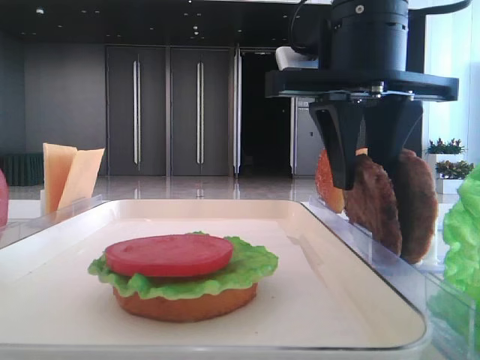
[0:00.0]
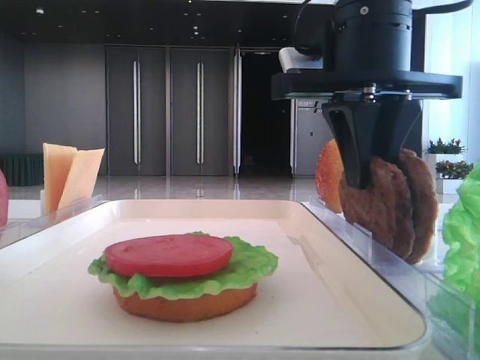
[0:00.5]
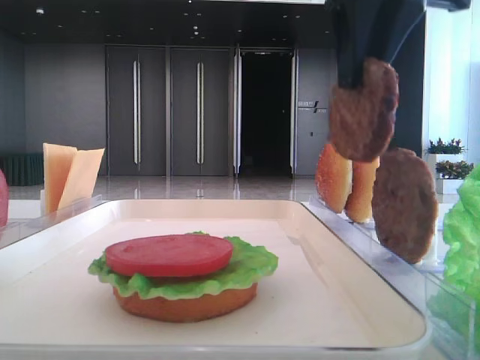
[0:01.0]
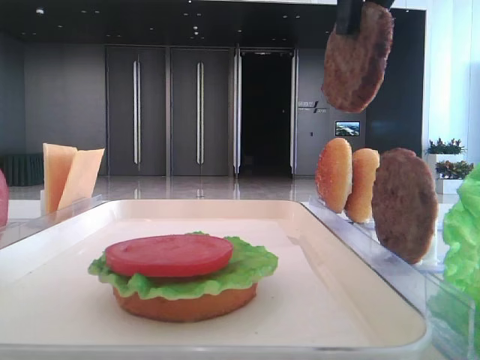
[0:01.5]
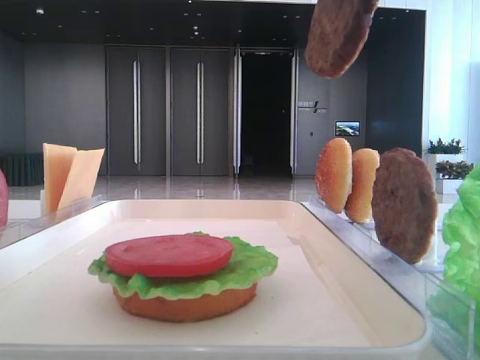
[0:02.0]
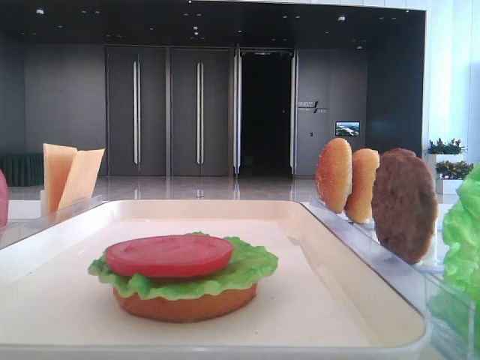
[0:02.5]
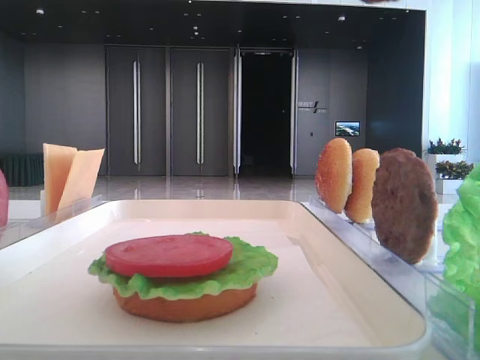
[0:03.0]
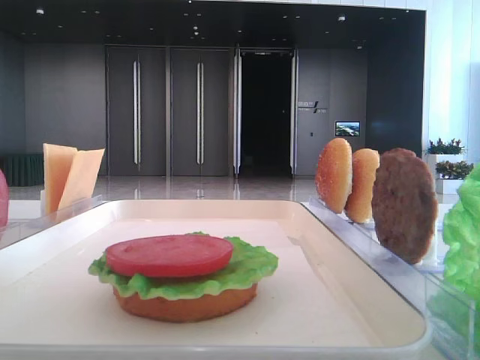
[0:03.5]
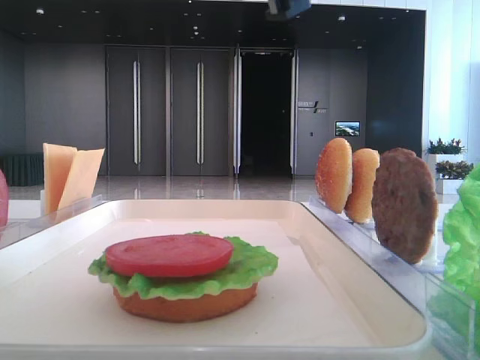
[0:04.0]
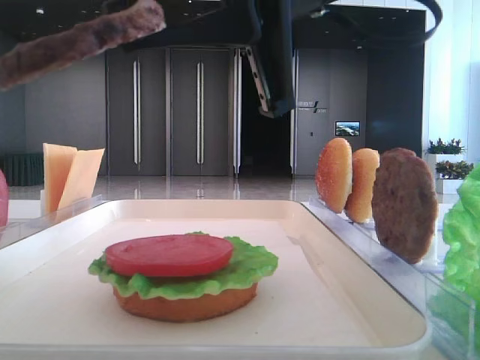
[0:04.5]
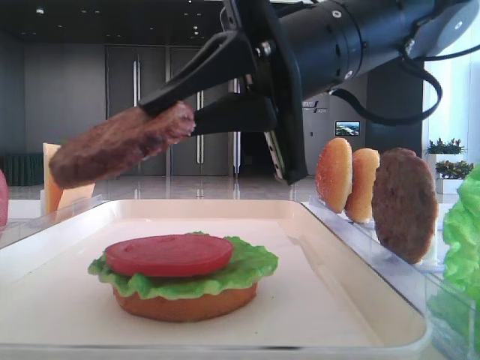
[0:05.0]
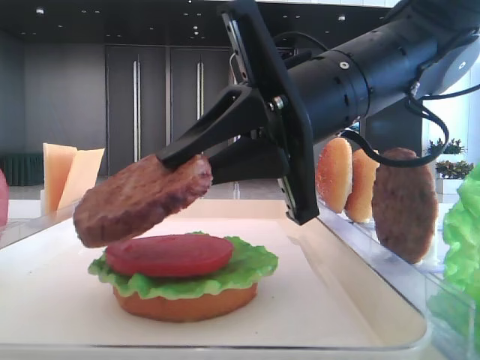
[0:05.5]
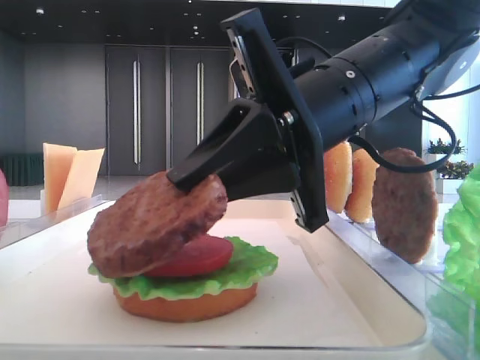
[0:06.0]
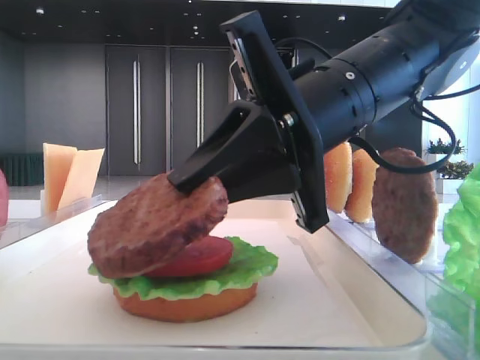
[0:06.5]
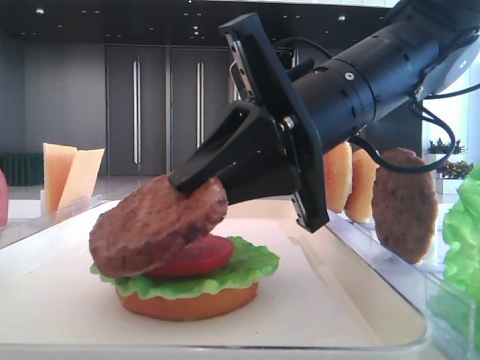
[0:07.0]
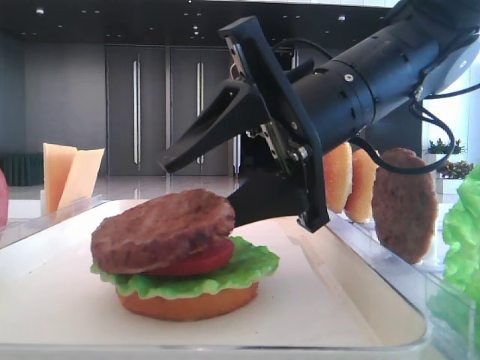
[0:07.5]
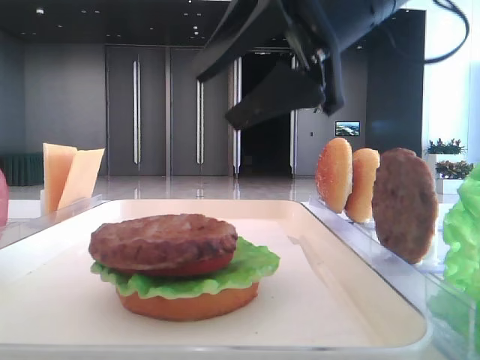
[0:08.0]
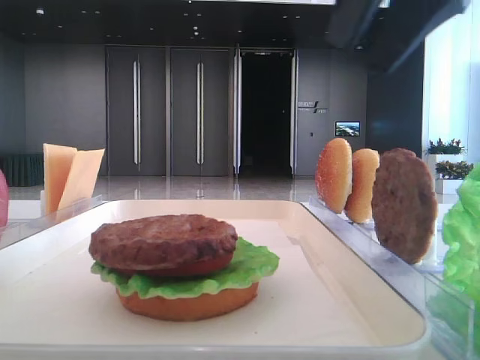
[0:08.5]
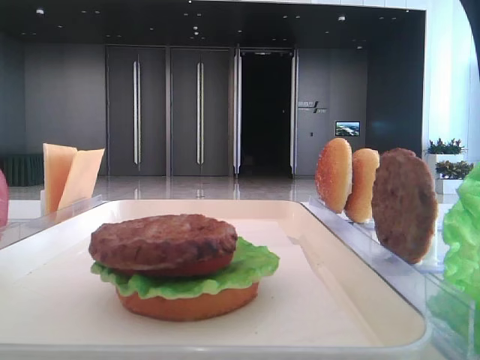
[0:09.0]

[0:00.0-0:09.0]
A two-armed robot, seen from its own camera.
Step, 0.5 to 7.5 s: Place the patty on the tomato slice with the right hand.
0.0 to 2.0 s: The right gripper shifts about 15 cm upward, and closes up.
2.0 to 4.5 s: The right gripper shifts roughly 15 cm downward and to the left. The left gripper closes up.
4.5 to 7.0 s: The right gripper travels downward by roughly 10 cm.
7.0 to 9.0 s: The right gripper heads upward and to the right, covering about 20 cm, and opens.

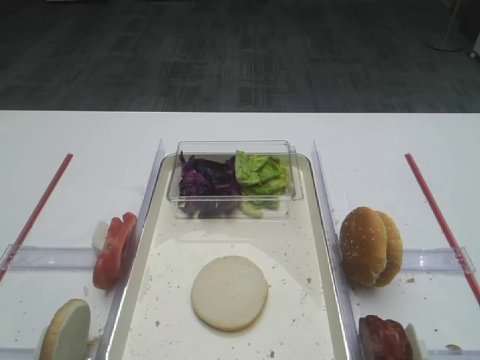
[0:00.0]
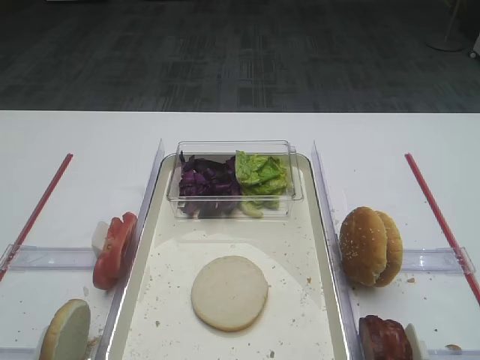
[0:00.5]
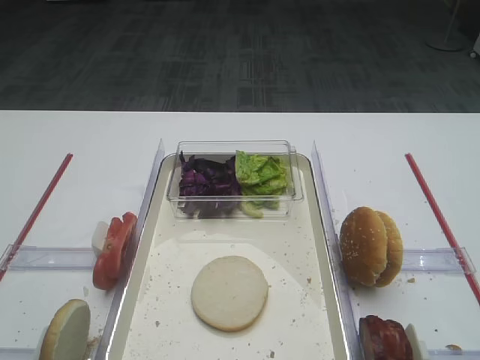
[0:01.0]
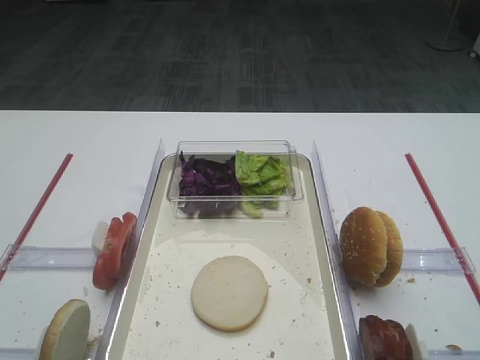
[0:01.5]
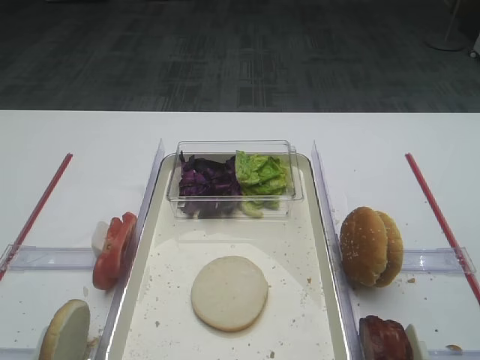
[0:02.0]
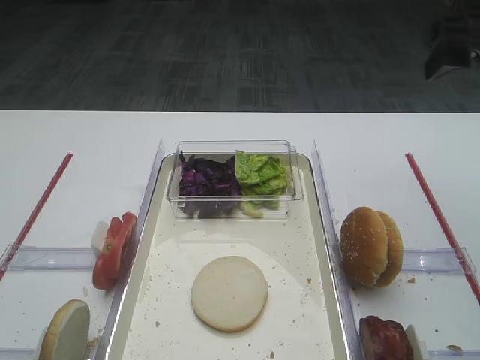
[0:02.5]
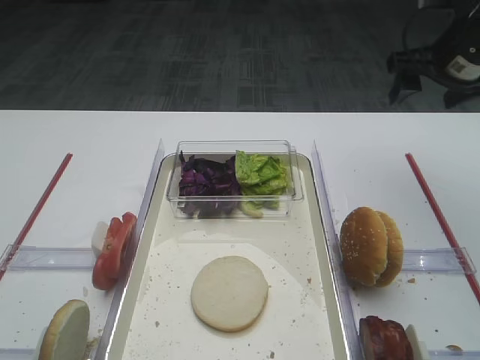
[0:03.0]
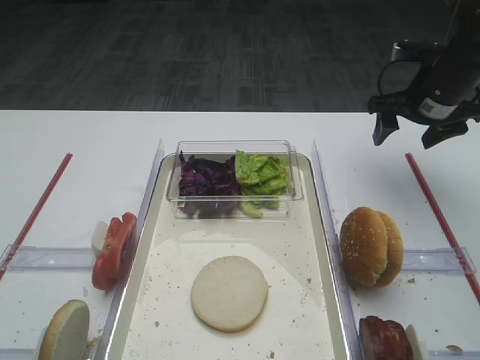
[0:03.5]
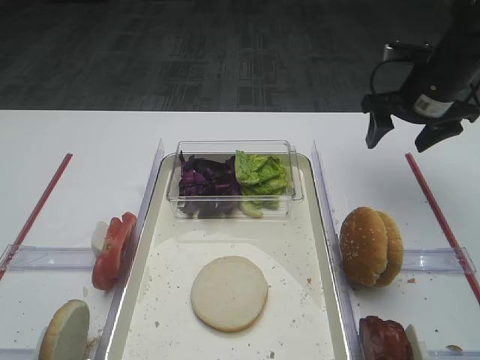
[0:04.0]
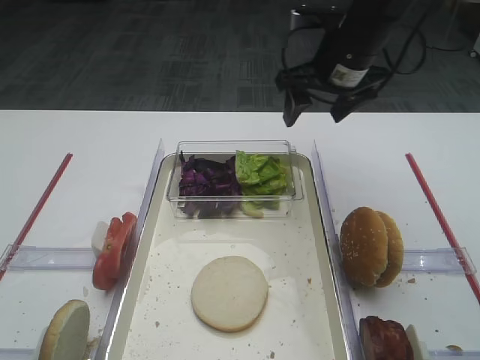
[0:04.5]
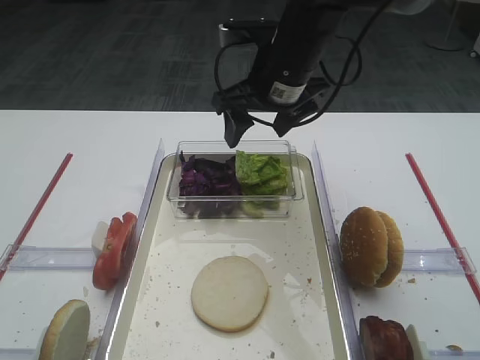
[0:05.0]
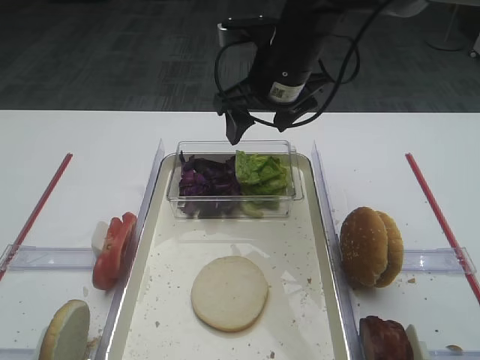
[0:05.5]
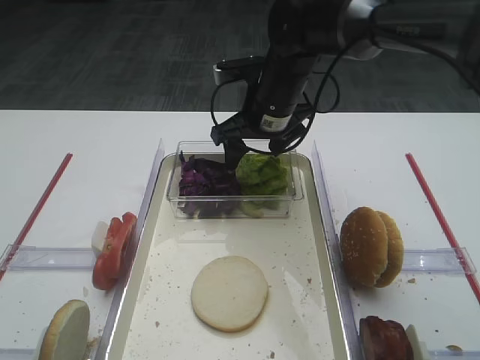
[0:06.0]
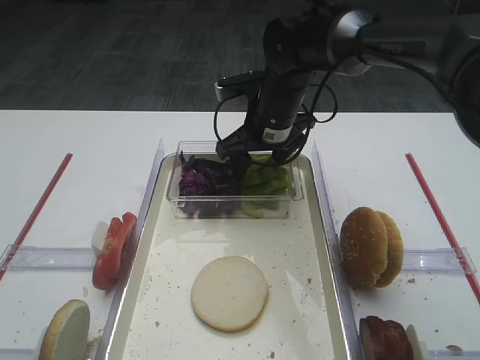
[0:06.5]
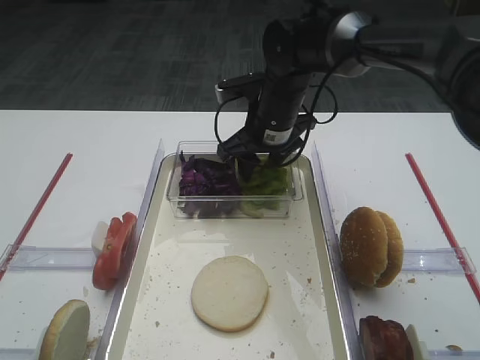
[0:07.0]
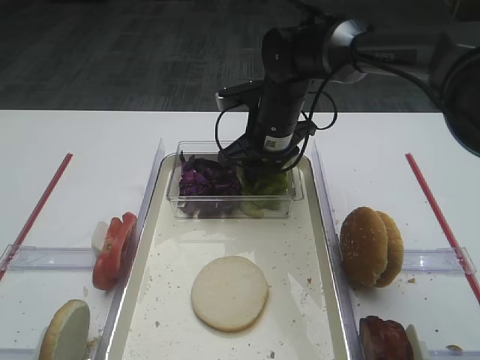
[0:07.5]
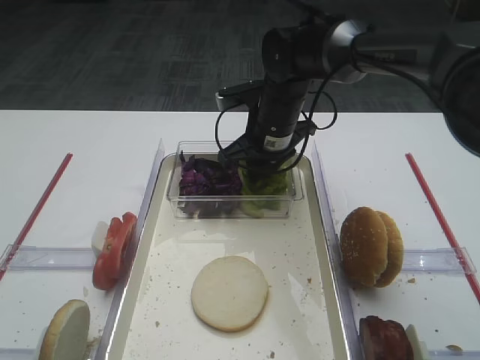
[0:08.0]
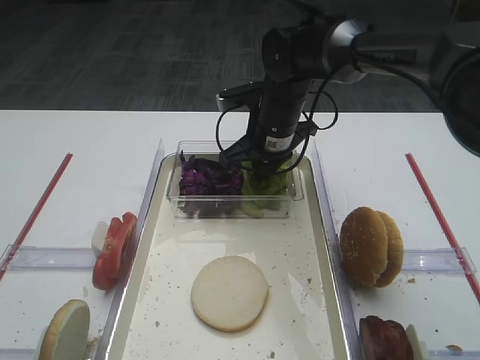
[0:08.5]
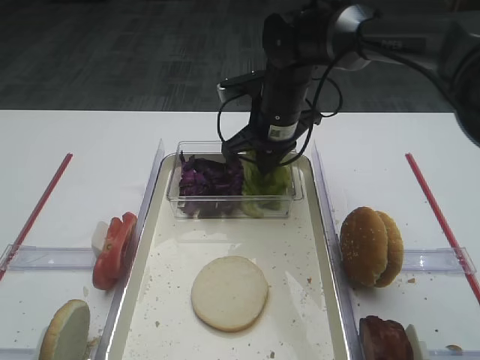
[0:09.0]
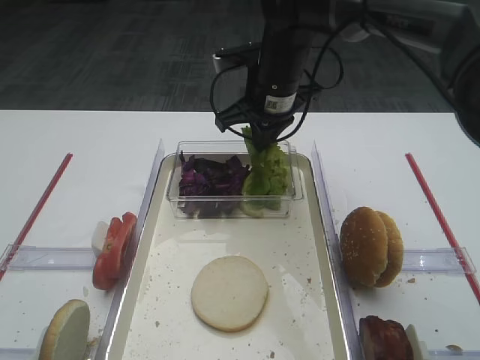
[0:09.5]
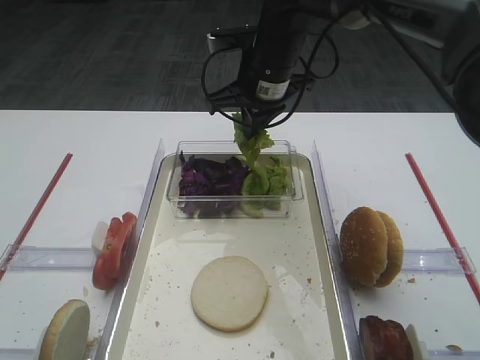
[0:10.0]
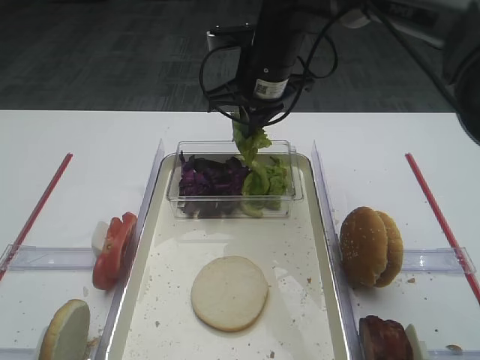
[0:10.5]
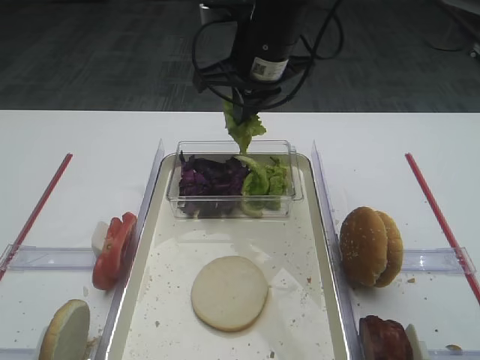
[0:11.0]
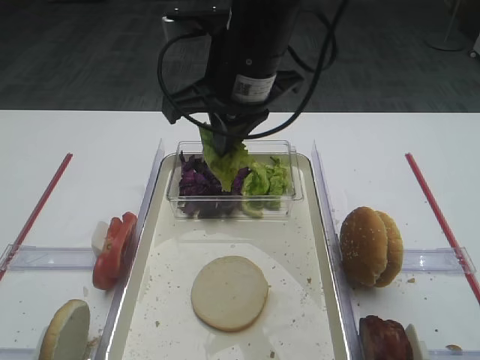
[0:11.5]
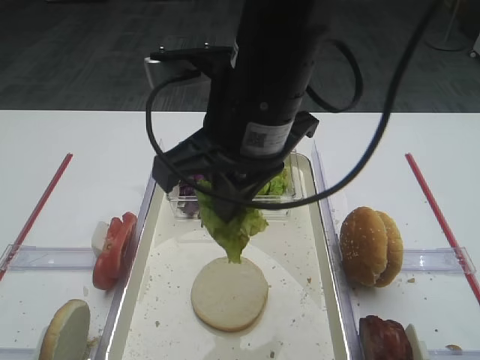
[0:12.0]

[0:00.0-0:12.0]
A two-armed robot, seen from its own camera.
Step, 0.0 to 10.0 s: Pick up the lettuce leaf with the right gripper.
2.0 to 4.0 s: The right gripper goes some 30 cm forward and downward.
4.0 to 6.0 s: The right gripper travels to the left by approximately 20 cm.
6.0 to 8.0 s: The right gripper closes its fingers.
8.0 to 10.0 s: The right gripper moves upward, about 10 cm.
10.0 to 12.0 s: The right gripper travels backward by some 20 cm.

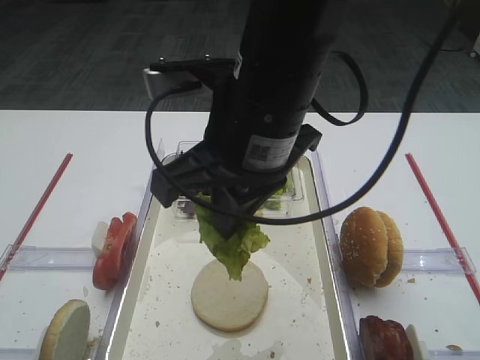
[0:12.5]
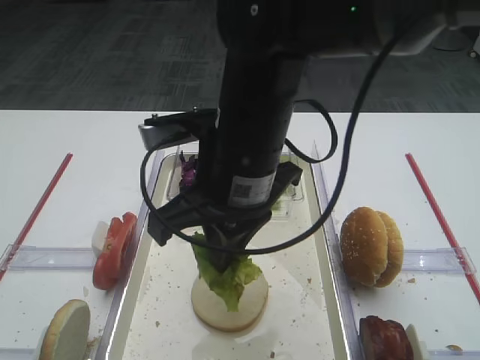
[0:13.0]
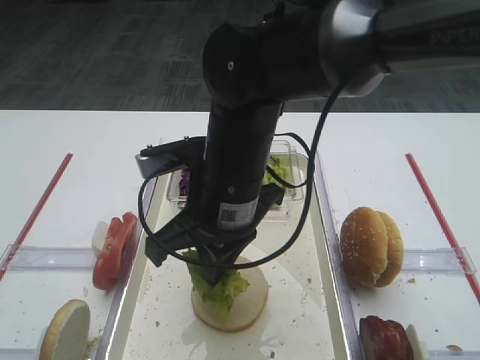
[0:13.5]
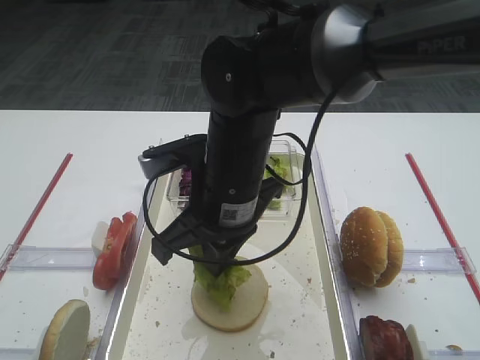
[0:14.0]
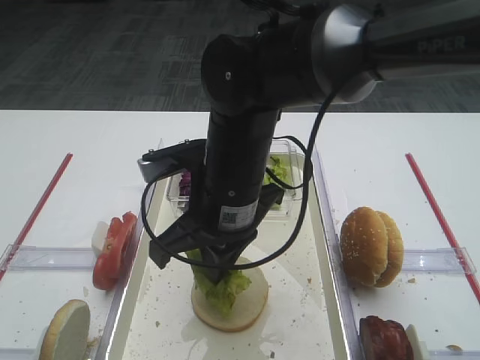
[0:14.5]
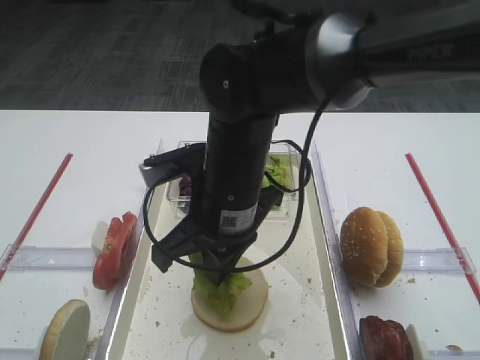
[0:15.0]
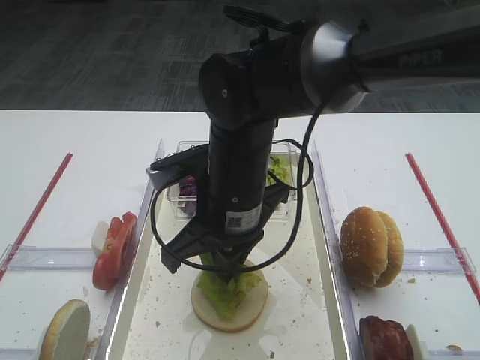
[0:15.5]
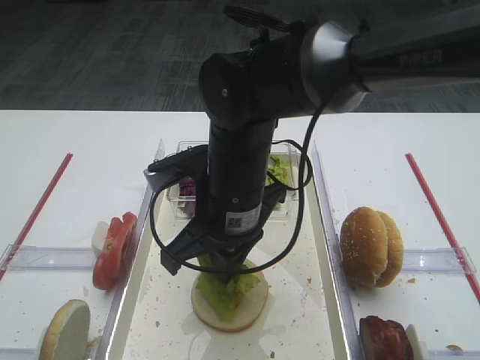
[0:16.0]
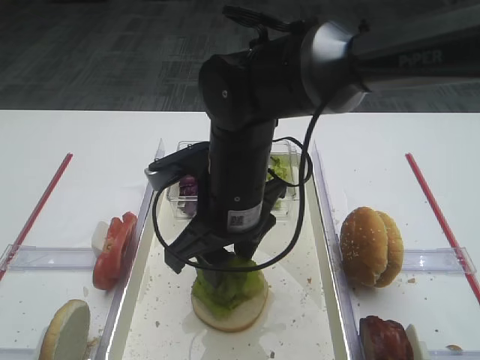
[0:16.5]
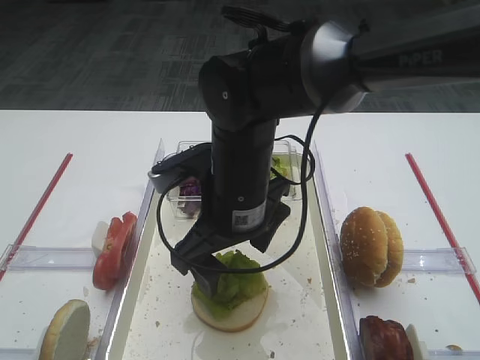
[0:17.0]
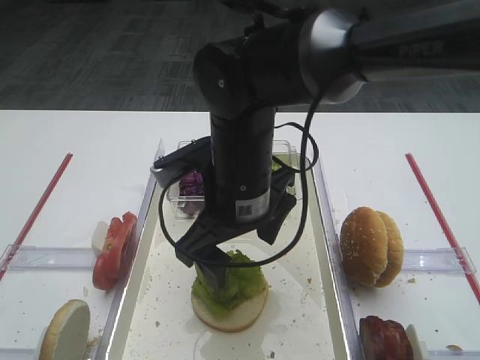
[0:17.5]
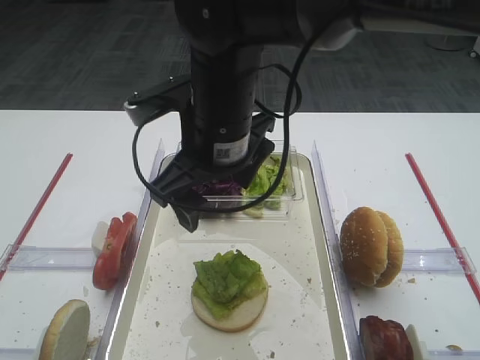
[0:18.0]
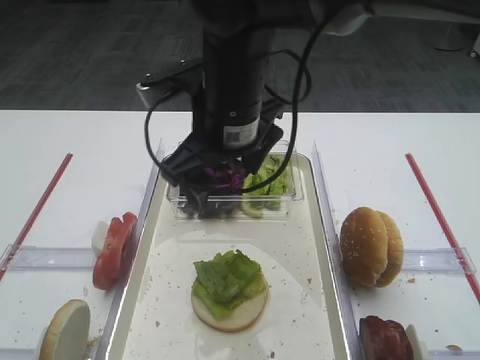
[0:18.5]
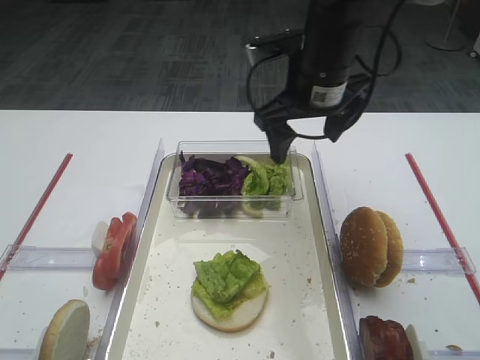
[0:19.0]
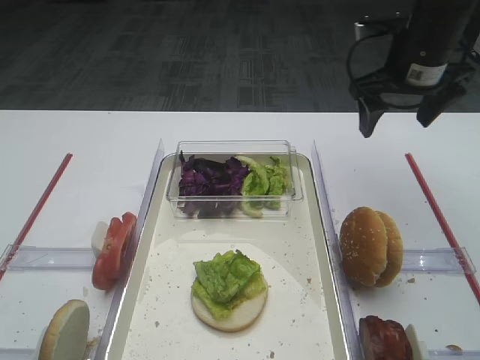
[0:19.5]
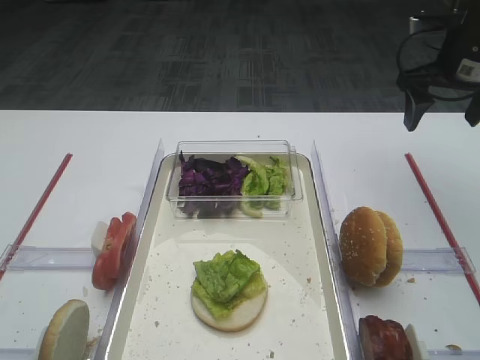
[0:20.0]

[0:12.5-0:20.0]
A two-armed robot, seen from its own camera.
Step, 12.5 to 17.5 s: Place the lettuce leaf on the bread slice with the right gripper.
12.5 to 14.5 s: The right gripper is displaced downward by about 10 cm.
14.5 to 16.5 s: The right gripper opens up.
16.5 to 18.0 s: The right gripper heads upward, covering about 5 cm, and opens up.
18.0 to 20.0 s: The right gripper is displaced to the right and forward by approximately 30 cm.
